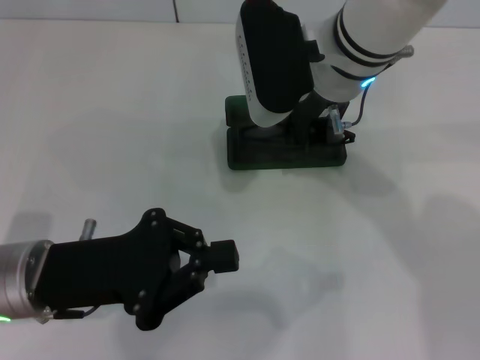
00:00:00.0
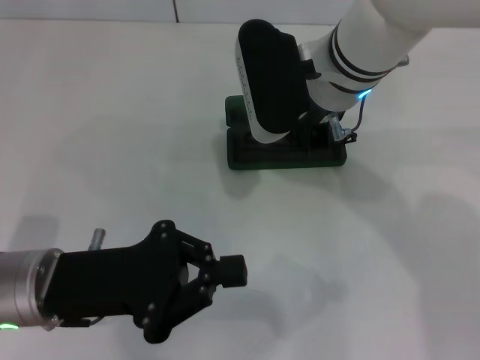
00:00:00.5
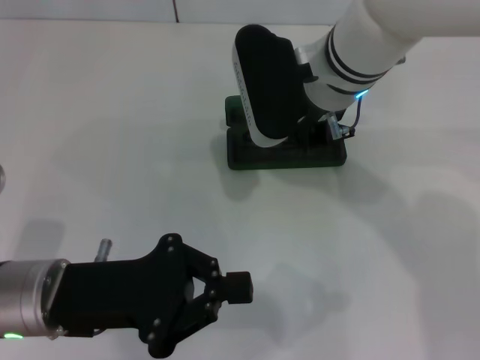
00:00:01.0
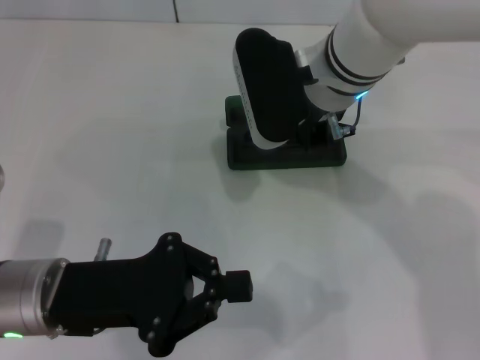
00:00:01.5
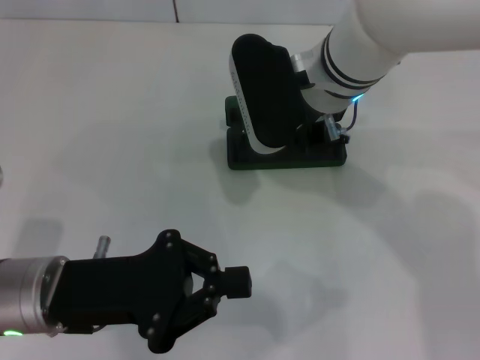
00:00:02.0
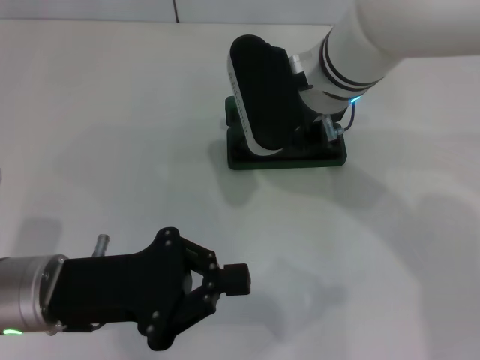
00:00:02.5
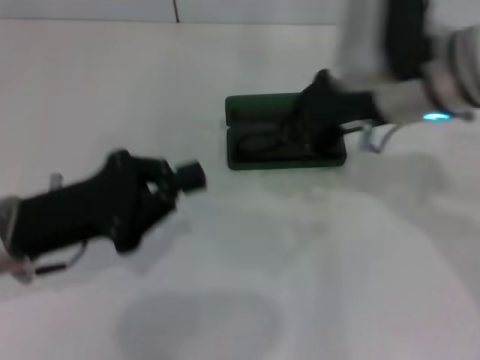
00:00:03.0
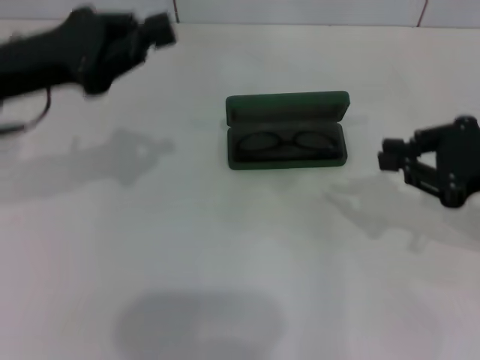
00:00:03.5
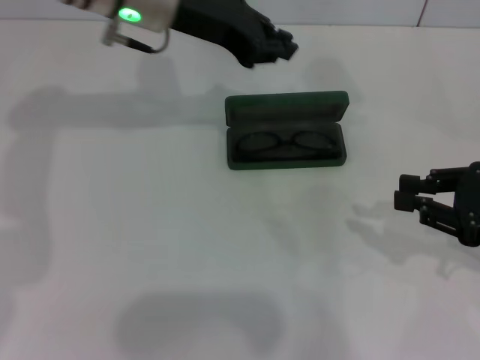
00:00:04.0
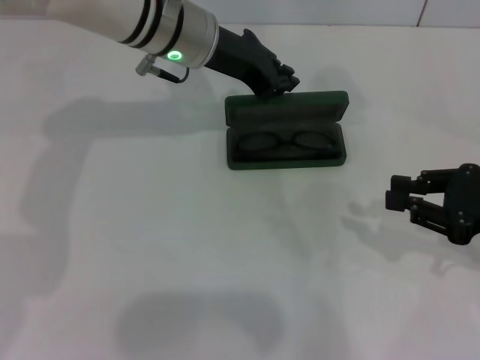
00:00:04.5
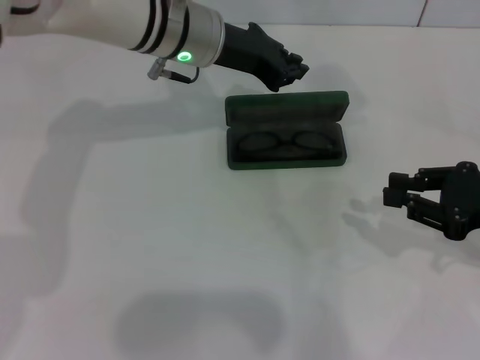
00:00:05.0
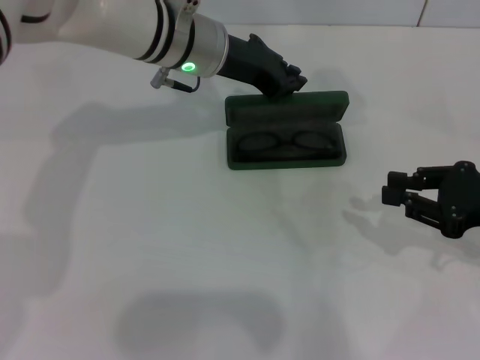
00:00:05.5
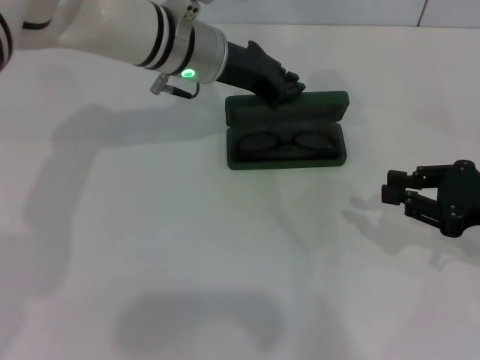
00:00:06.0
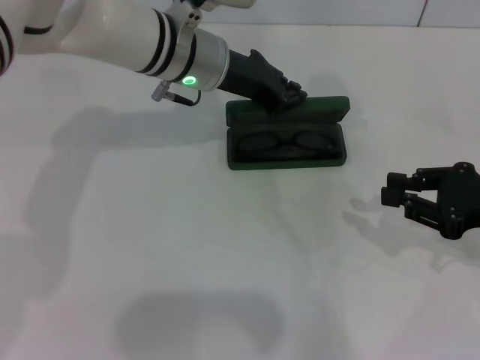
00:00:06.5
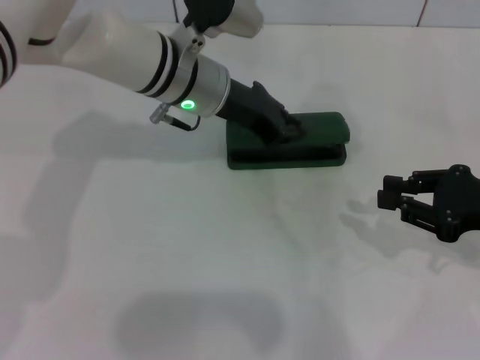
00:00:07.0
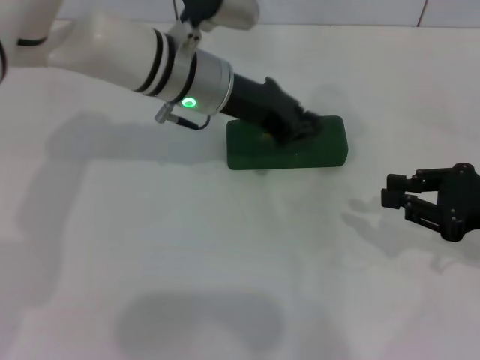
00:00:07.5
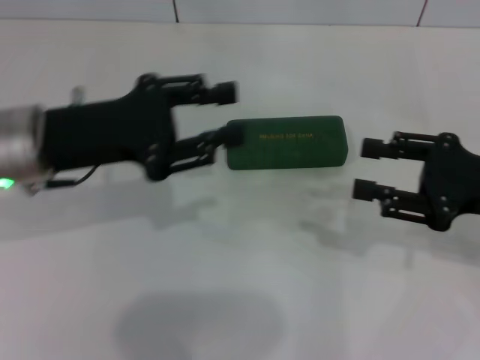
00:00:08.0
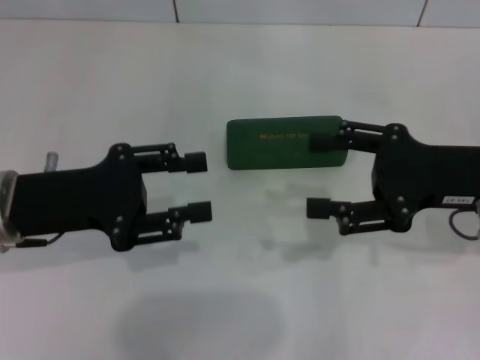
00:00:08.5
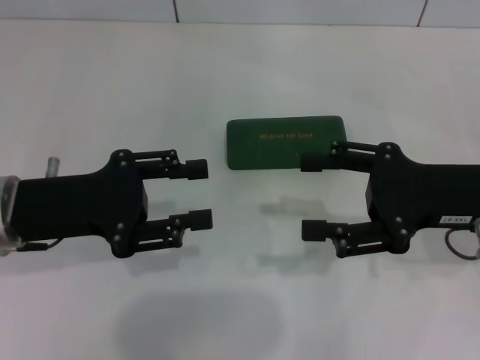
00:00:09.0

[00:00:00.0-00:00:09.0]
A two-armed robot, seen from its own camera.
Step, 00:00:00.0 to 00:00:02.0: Put the glasses into the case with your right hand.
Step, 00:00:02.5 to 00:00:07.0: Close the glasses case with your left hand.
00:00:00.0 to 00:00:02.0: The grippers move only a little.
00:00:02.0 to 00:00:04.5: The right gripper travels to the right and backward by approximately 30 cm. The left gripper moves forward and to the right, about 25 cm.
00:00:04.5 to 00:00:07.0: The grippers move only a little.
00:00:07.0 to 00:00:09.0: The right gripper heads to the left, covering about 5 cm, and opens up; the left gripper is displaced to the left and backward by some 25 cm, and opens up.

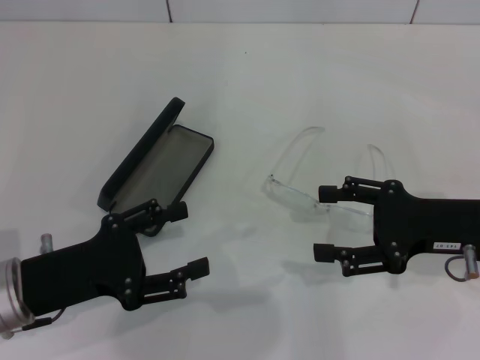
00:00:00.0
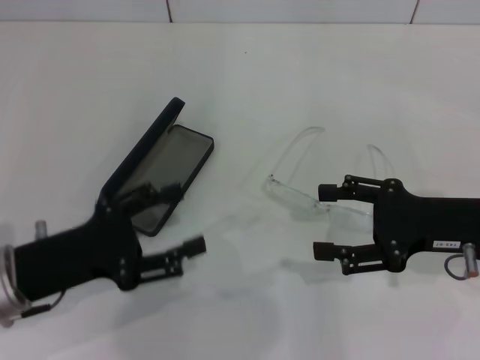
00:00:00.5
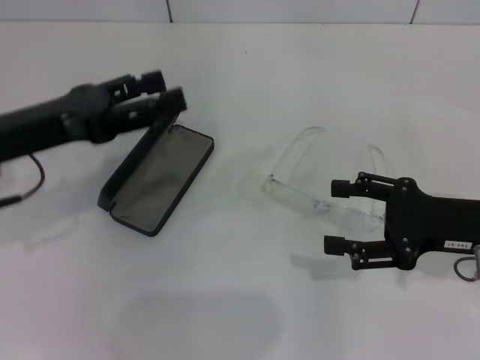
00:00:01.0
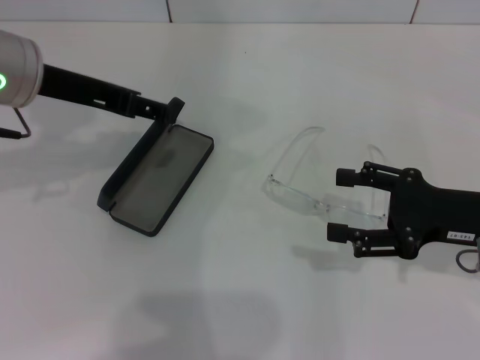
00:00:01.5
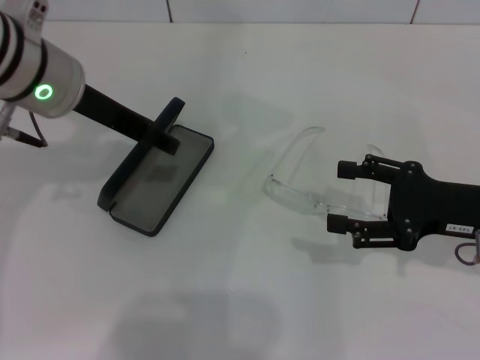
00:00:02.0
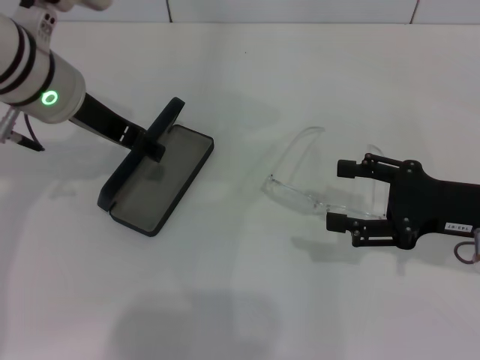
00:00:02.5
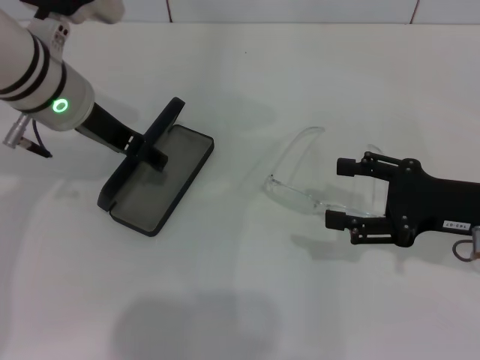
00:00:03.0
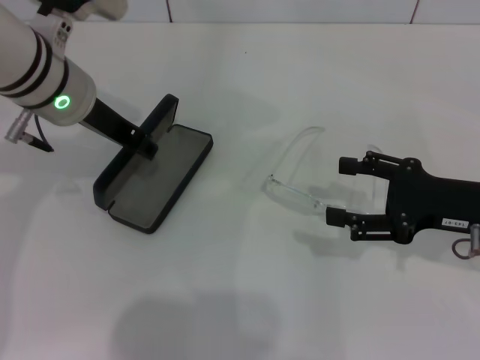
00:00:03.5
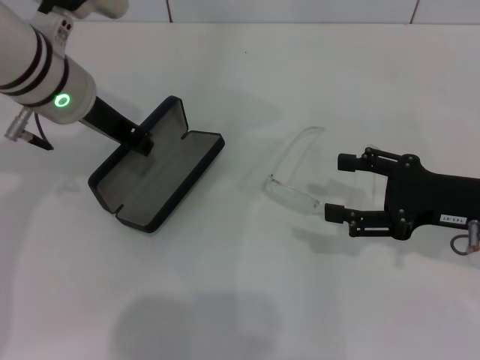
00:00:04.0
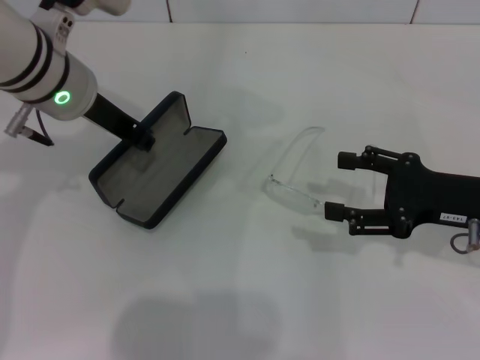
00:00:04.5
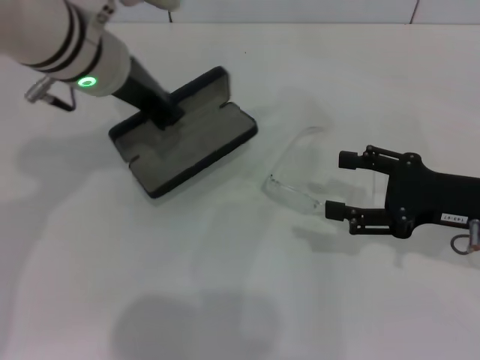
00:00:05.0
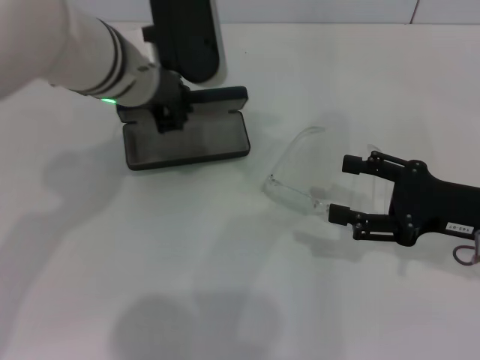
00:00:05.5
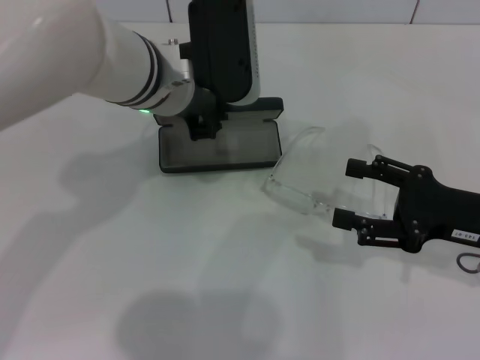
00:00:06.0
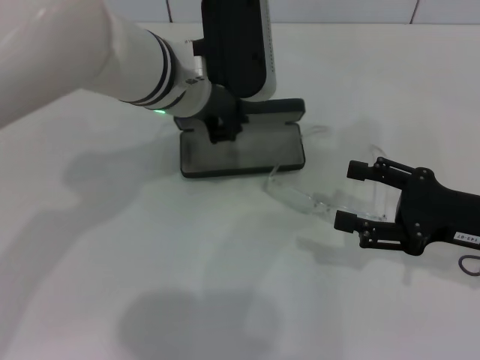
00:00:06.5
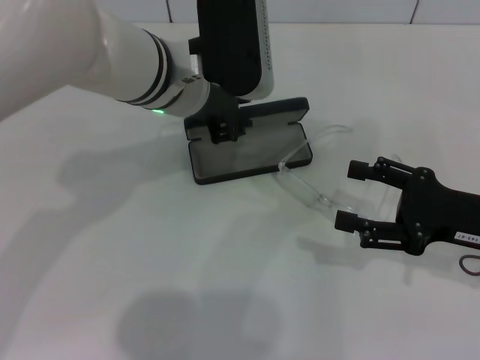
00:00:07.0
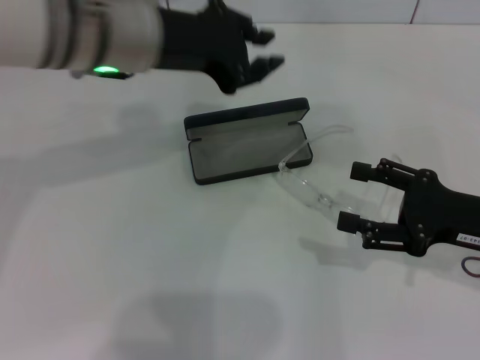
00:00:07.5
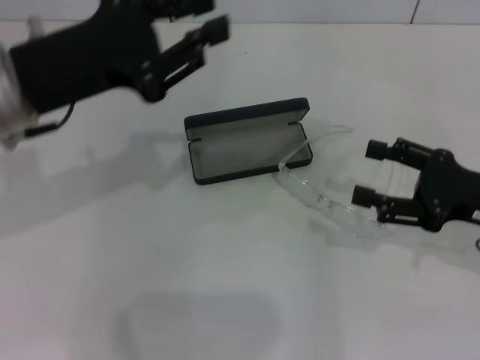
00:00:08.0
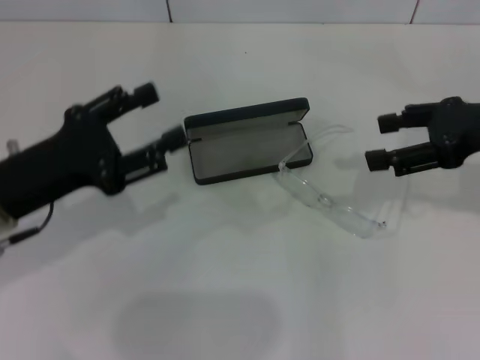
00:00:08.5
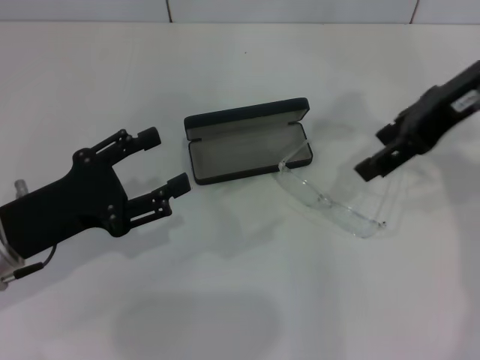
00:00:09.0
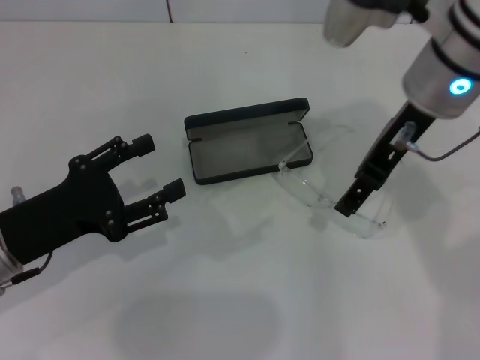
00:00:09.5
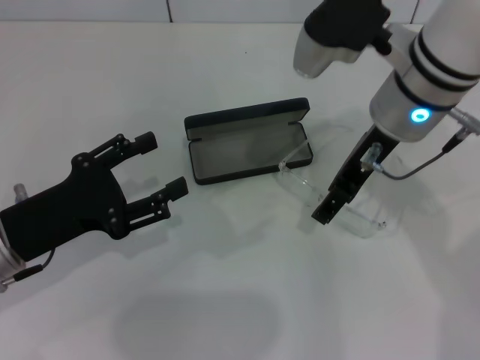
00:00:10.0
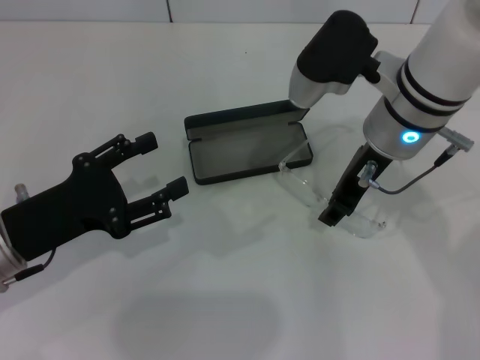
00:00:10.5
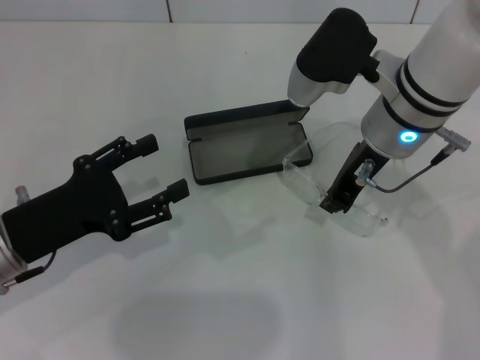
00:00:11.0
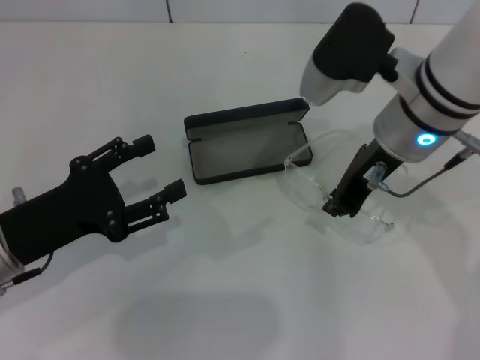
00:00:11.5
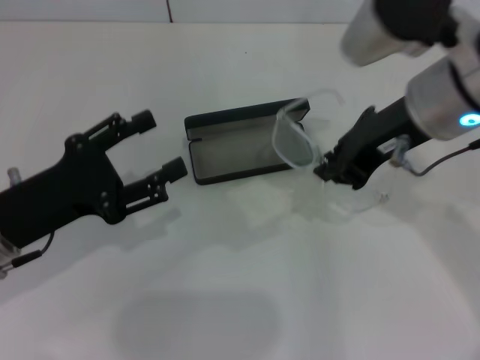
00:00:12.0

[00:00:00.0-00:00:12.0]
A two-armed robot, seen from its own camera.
Step, 00:00:00.0 to 00:00:04.0: Grab the glasses case with your left hand.
Step, 00:00:04.5 to 00:00:06.5: Place the glasses case in the center of the table with your left hand.
Step, 00:00:07.0 to 00:00:10.5: Grab the eyeglass frame with your right hand.
00:00:00.0 to 00:00:02.0: The left gripper moves forward, upward and to the right, approximately 20 cm.
00:00:02.0 to 00:00:04.0: The left gripper closes up.
00:00:04.0 to 00:00:06.0: The left gripper goes roughly 10 cm to the right.
00:00:06.0 to 00:00:08.0: The left gripper shifts some 15 cm to the left and backward.
00:00:08.0 to 00:00:10.0: The left gripper moves downward and backward, some 15 cm, and opens. Meanwhile the right gripper shifts about 20 cm to the left, upward and forward.
00:00:10.0 to 00:00:12.0: The right gripper shifts by about 5 cm, and closes its fingers.

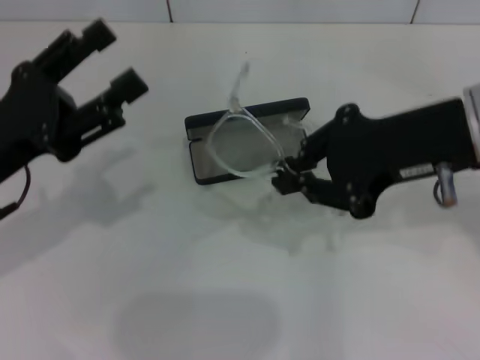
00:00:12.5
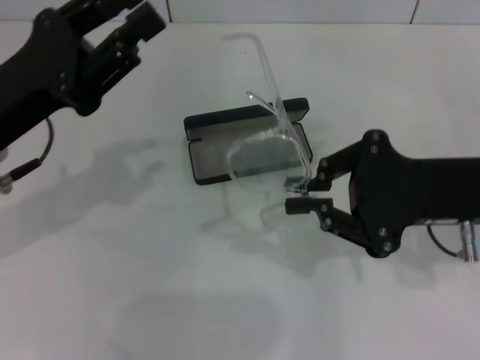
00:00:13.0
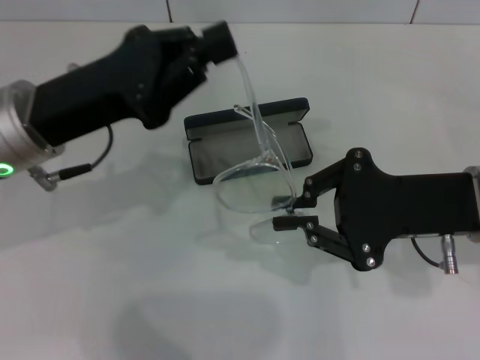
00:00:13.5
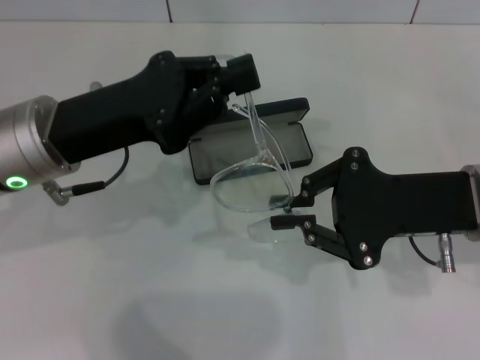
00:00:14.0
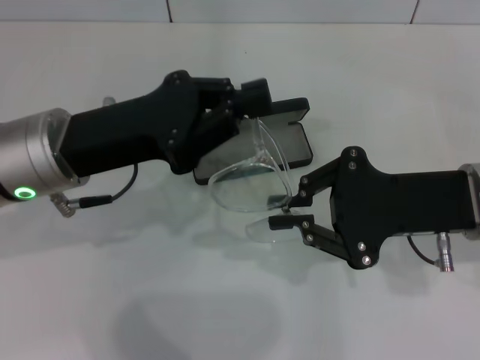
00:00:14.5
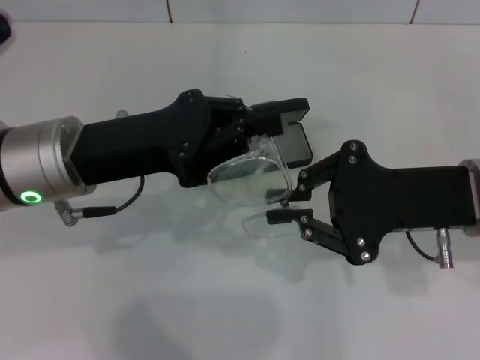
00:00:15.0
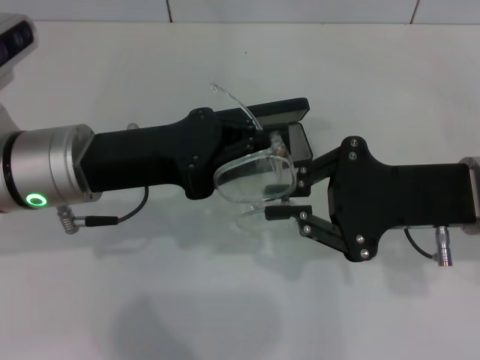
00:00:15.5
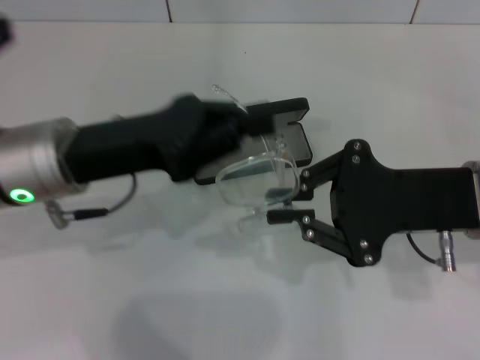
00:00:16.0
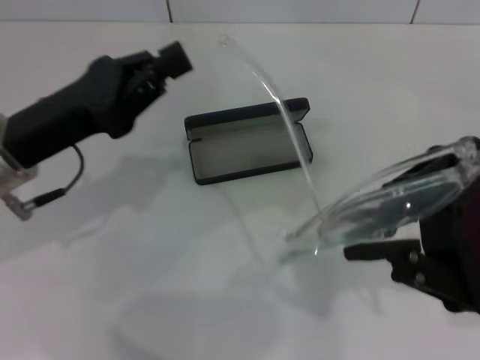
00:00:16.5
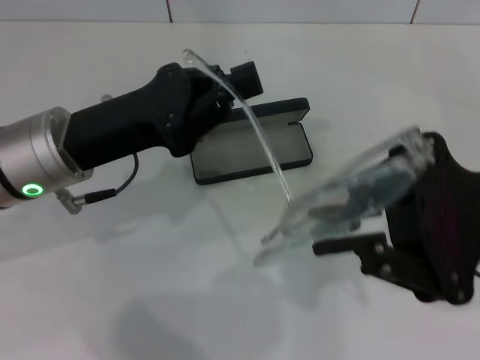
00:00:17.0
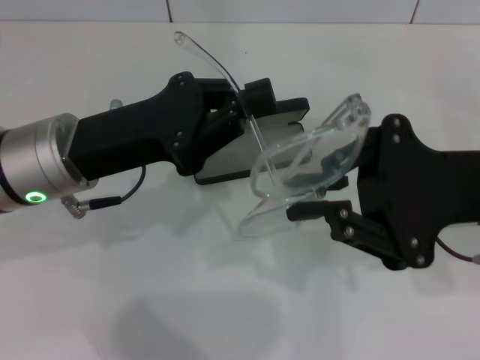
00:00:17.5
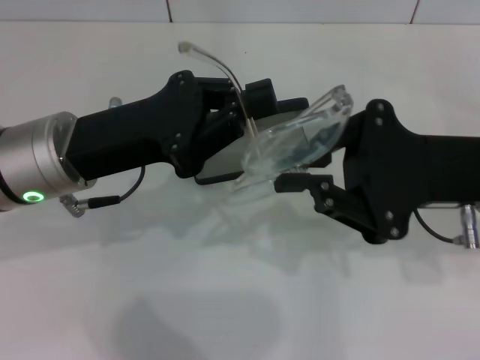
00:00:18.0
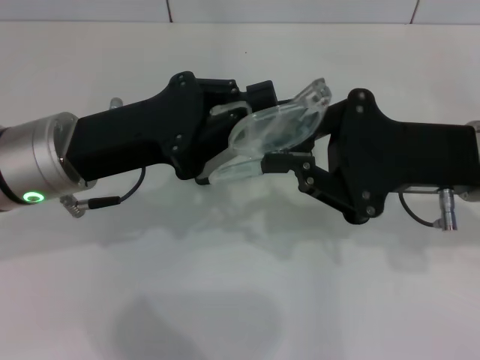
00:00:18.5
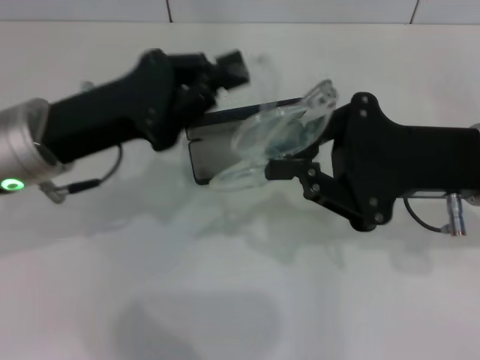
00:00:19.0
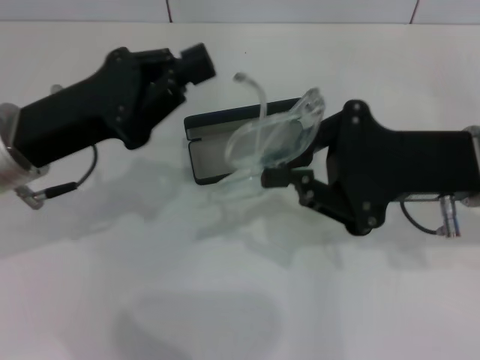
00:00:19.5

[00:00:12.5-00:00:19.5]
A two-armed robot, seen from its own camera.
Step, 00:00:12.5 to 00:00:18.5: Fold the frame with your left hand.
00:00:12.5 to 00:00:14.5: The right gripper goes roughly 10 cm downward. The left gripper travels to the right by approximately 5 cm, and closes its fingers.
00:00:14.5 to 00:00:16.0: The grippers make only small movements.
